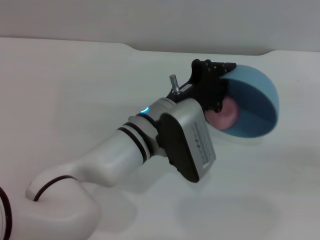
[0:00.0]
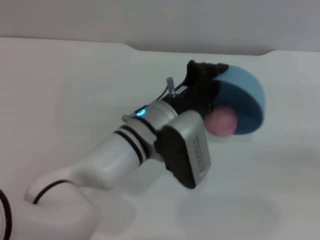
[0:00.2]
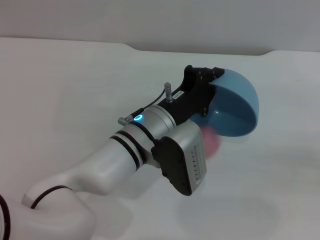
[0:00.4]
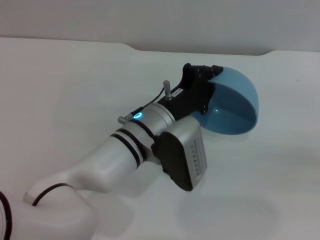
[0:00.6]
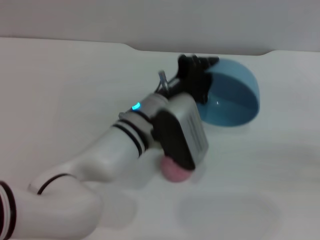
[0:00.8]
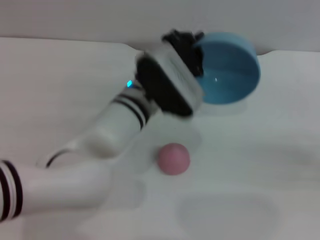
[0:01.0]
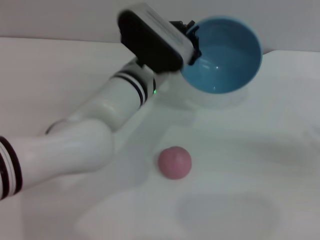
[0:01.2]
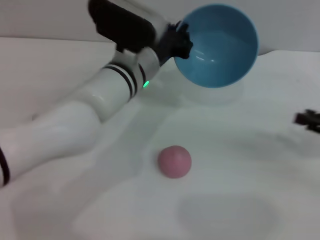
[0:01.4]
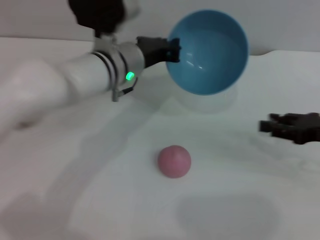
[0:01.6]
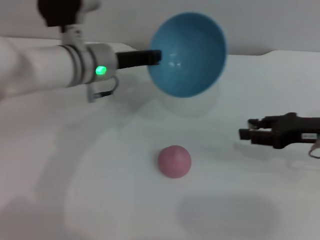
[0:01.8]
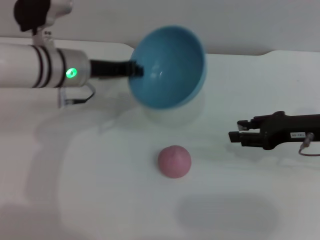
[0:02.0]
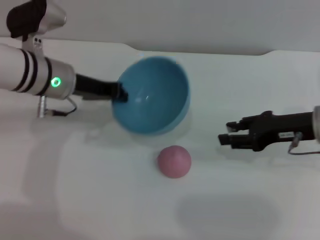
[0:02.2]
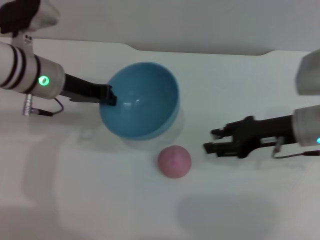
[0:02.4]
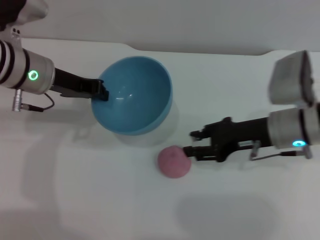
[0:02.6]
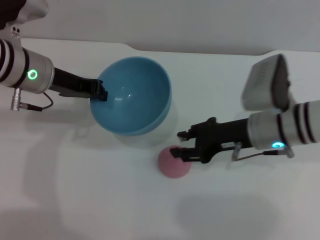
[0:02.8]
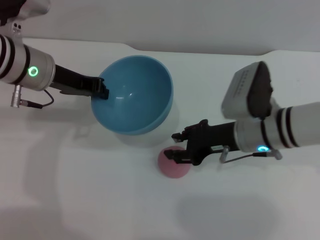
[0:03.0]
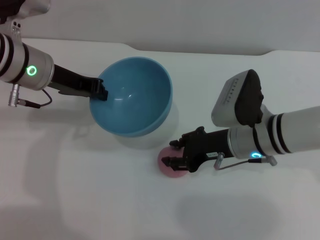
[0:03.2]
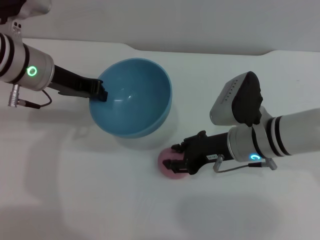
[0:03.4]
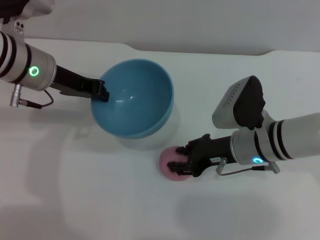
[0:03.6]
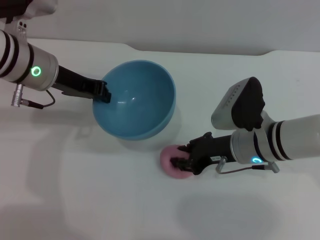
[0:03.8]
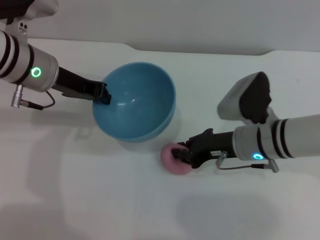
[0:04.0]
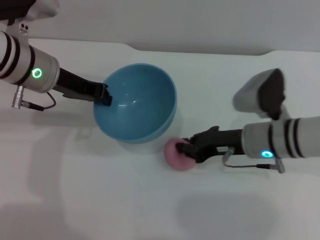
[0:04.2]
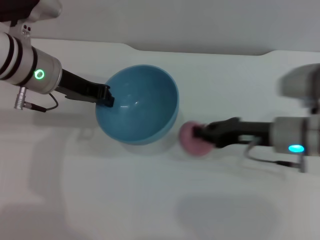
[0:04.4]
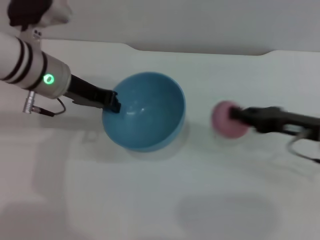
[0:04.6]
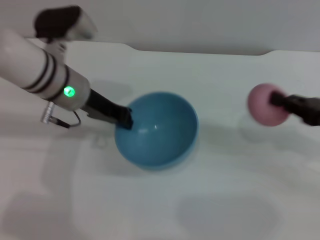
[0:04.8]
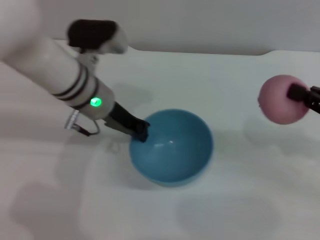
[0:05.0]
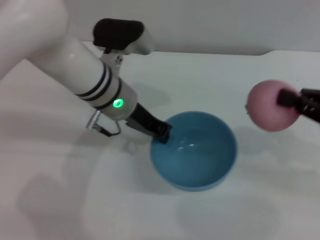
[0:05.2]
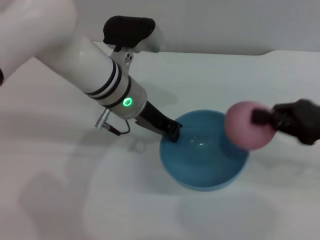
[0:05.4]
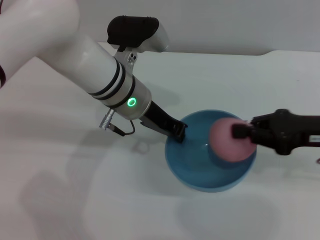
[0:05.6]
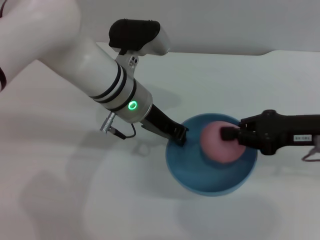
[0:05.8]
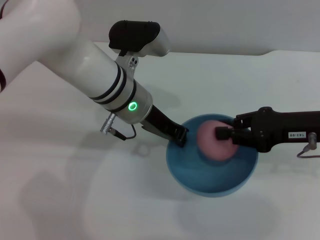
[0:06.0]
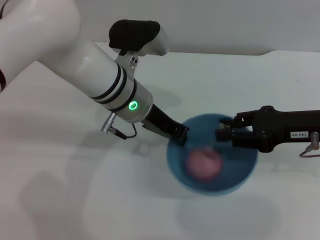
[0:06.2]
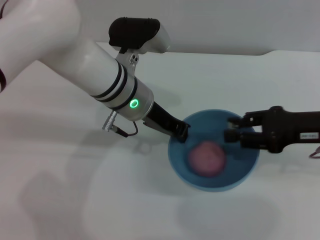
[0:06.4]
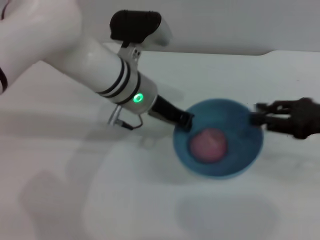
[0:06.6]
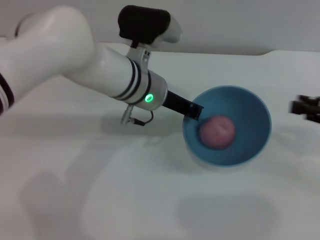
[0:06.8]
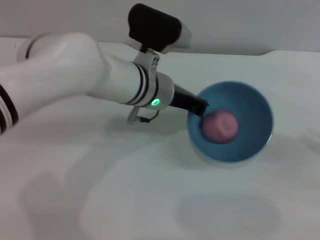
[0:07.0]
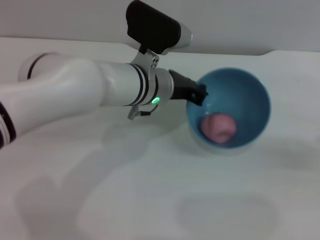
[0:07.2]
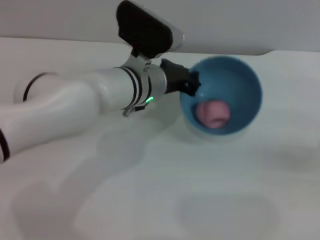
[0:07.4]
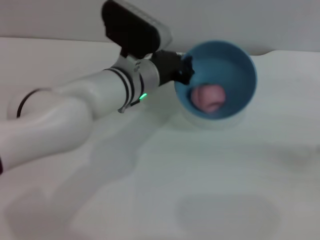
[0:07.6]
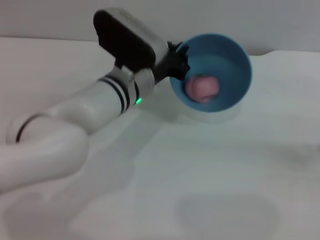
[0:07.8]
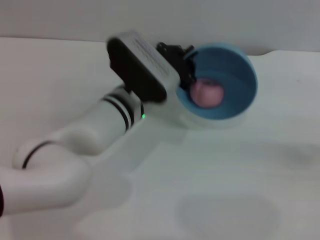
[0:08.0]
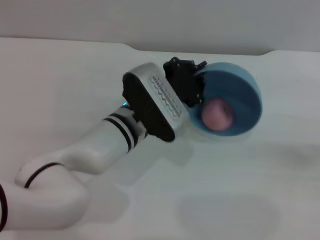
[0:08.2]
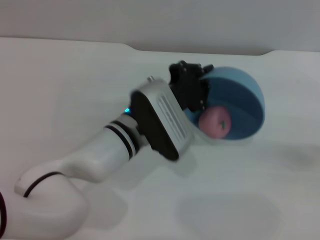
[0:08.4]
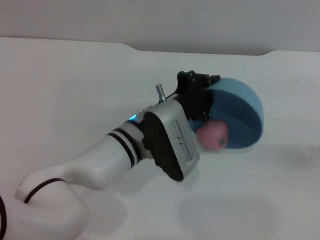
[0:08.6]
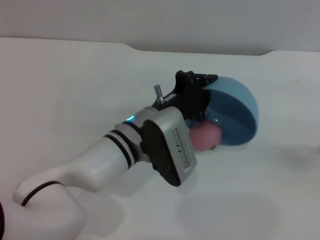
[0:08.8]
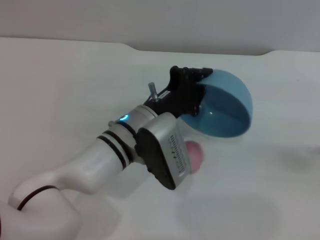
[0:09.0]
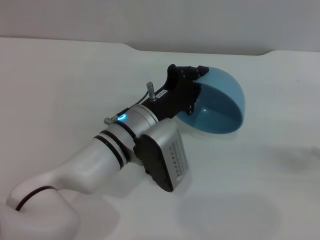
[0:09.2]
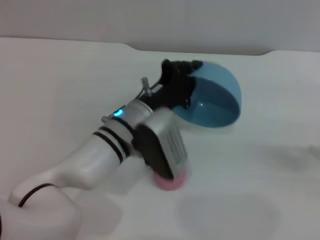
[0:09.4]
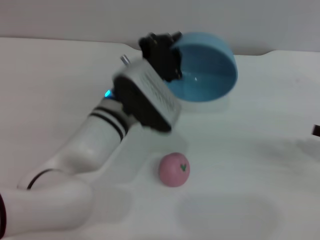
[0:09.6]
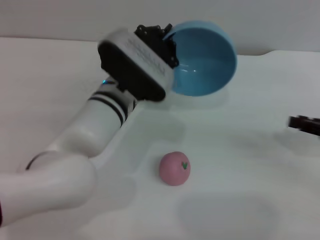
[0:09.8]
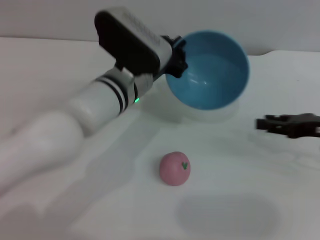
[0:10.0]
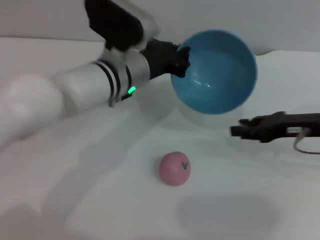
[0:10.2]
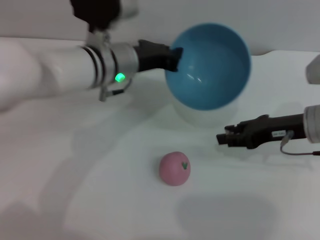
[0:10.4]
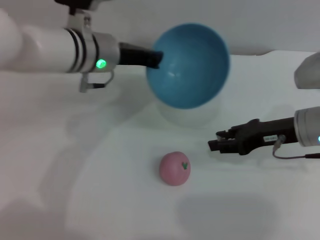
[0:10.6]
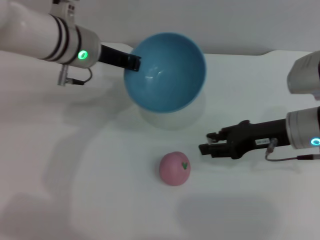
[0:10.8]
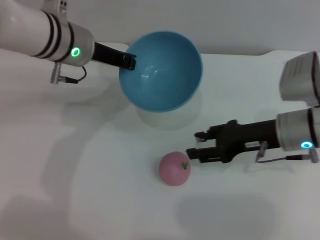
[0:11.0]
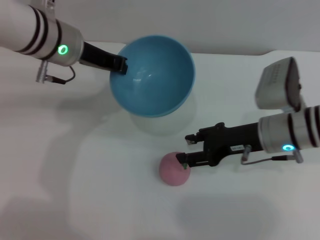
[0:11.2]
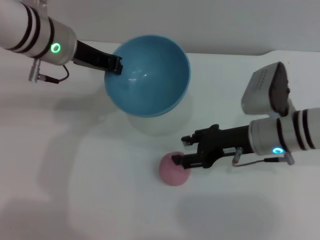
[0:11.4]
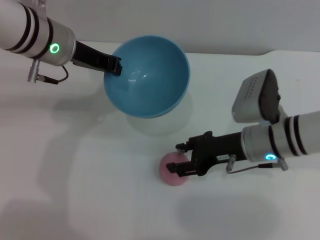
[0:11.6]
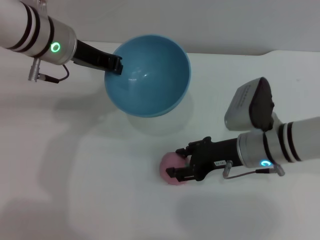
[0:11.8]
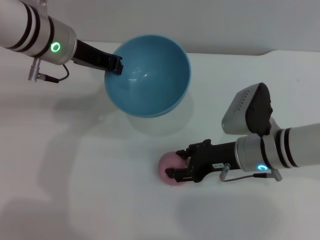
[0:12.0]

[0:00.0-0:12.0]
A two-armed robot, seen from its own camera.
Task of the whole recording: put the peach into the blue bowl and pour it out repeatedly.
Step, 0:01.2 to 0:04.6: Pick up the peach with the right gripper.
Step, 0:04.8 to 0:06.4: Place the peach into the bowl.
Step, 0:06.6 to 0:09.4: Pour the peach out of bowl.
0:00.0 to 0:01.6: The left gripper goes roughly 10 cm forward and to the left; the right gripper heads to the left and forward, covering about 15 cm.
0:01.6 to 0:03.0: The grippers both shift to the left by roughly 15 cm.
0:03.0 to 0:04.4: The right gripper heads to the right, covering approximately 5 cm, and closes up.
0:04.4 to 0:06.0: The right gripper is displaced upward and to the right by about 10 cm. The left gripper heads to the right, covering some 15 cm.
0:06.0 to 0:07.6: The right gripper moves to the right, some 15 cm, and opens its fingers.
0:07.6 to 0:09.0: The left gripper is displaced backward by approximately 5 cm.
0:09.0 to 0:10.4: The right gripper shifts about 20 cm to the left and forward. The left gripper goes roughly 10 cm forward and upward.
0:10.4 to 0:12.0: The left gripper is displaced to the left and upward by about 10 cm. The right gripper heads to the left, covering roughly 10 cm.

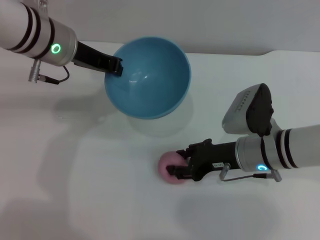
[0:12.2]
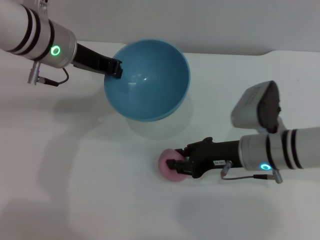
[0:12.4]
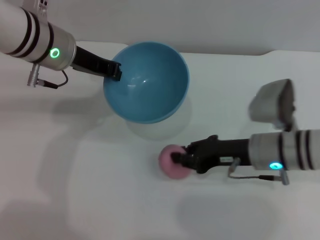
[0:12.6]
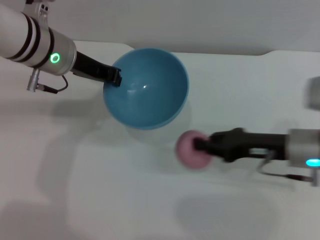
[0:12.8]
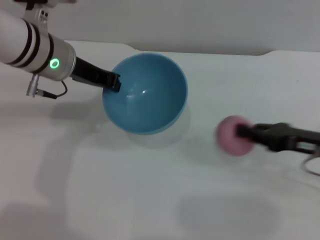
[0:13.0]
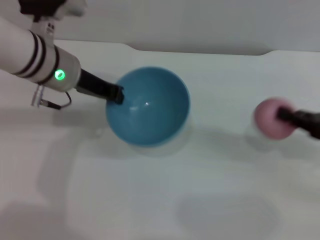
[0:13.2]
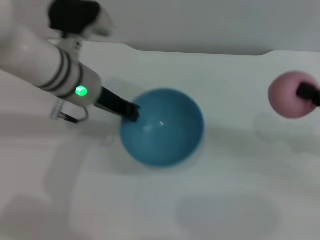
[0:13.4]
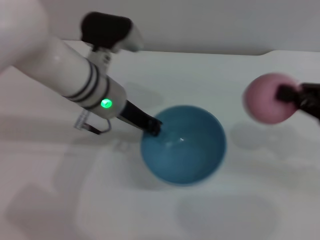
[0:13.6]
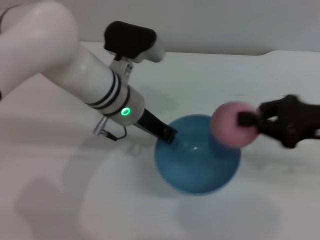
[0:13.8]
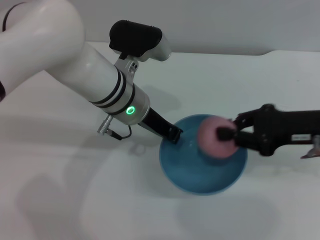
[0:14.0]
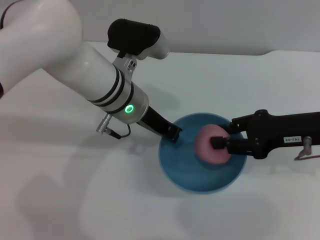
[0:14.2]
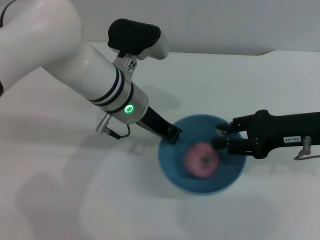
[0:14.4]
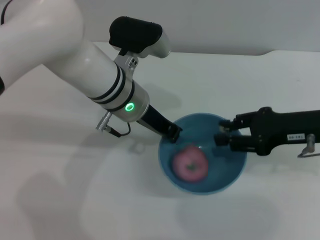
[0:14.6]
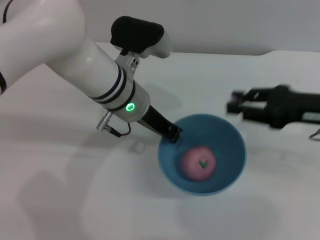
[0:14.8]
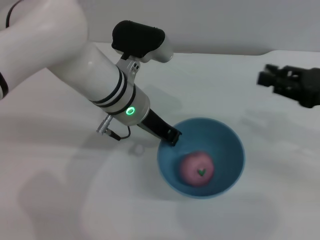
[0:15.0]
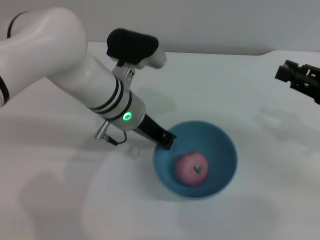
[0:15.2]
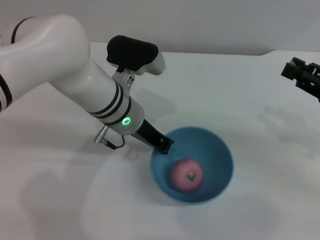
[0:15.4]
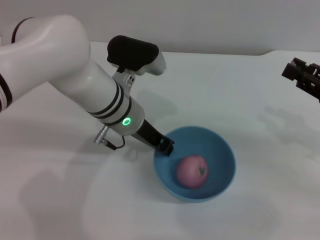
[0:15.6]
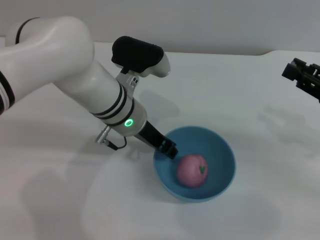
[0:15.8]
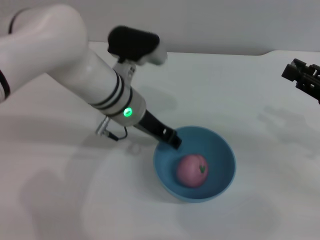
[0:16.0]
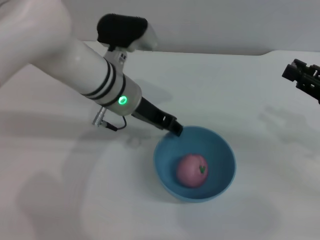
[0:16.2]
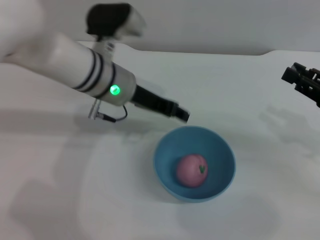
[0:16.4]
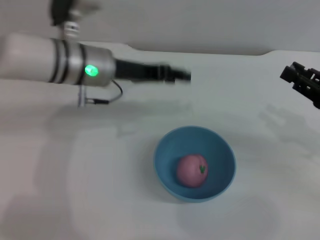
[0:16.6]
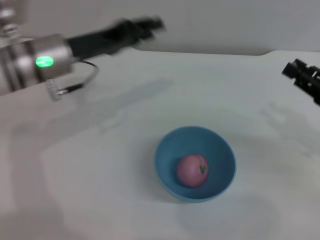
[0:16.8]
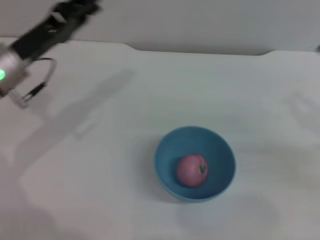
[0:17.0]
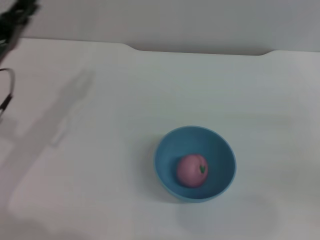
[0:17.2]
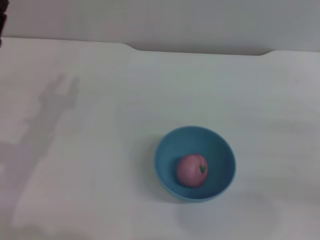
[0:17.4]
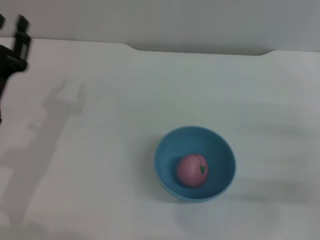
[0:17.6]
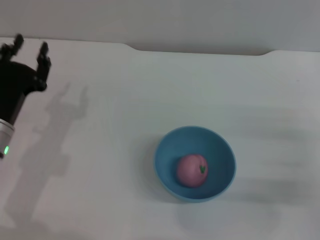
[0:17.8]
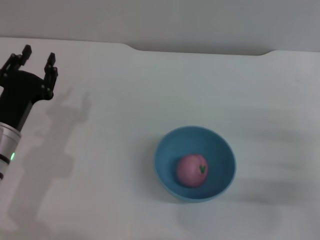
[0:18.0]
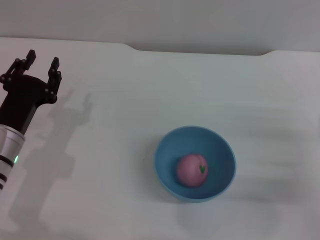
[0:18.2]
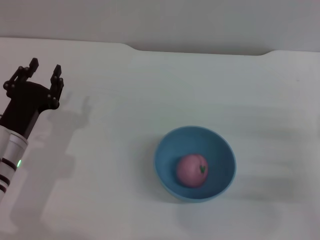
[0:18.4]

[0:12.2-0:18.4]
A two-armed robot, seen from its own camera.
Task of the whole recording: put the peach into the blue bowl and pour it out repeatedly.
Step, 0:13.2 to 0:14.6: Place the peach into the bowl.
Step, 0:14.8 to 0:16.4: Place the bowl on the table.
0:12.2 to 0:13.8: The left gripper moves to the right and downward, about 10 cm, while the right gripper shifts approximately 15 cm to the right and upward, and closes its fingers.
0:13.8 to 0:15.4: The right gripper ends up approximately 5 cm from where it was, and opens its fingers.
0:15.4 to 0:16.8: The left gripper goes roughly 10 cm to the left, and opens up.
0:16.8 to 0:18.4: The left gripper moves downward and backward, some 15 cm; the right gripper shifts roughly 5 cm downward.
